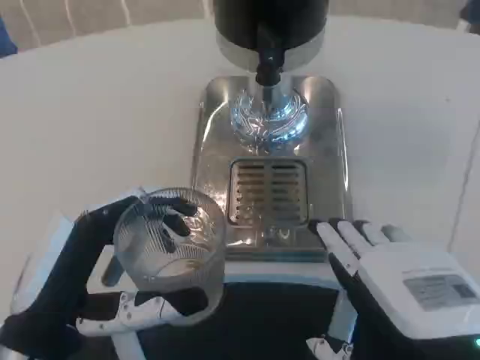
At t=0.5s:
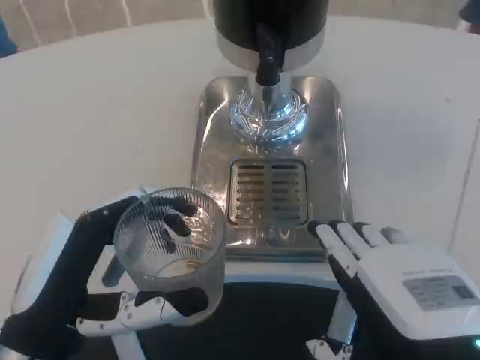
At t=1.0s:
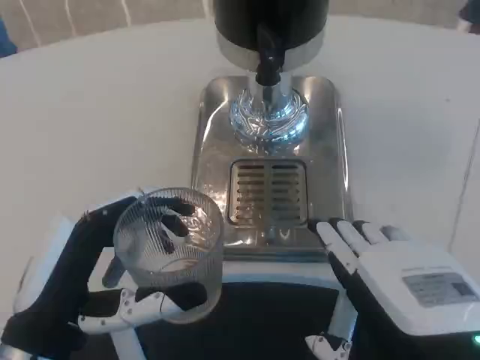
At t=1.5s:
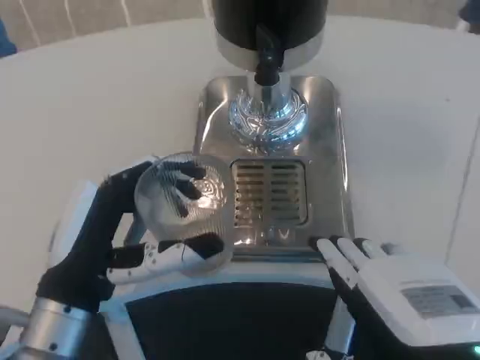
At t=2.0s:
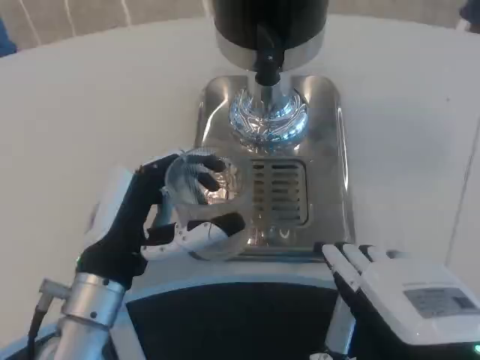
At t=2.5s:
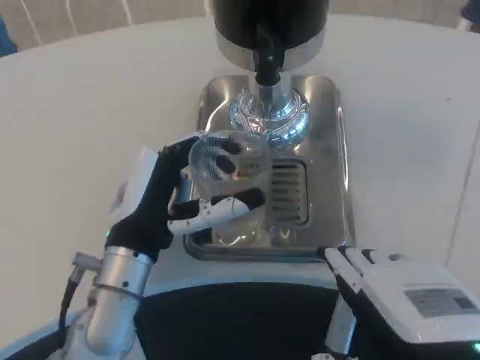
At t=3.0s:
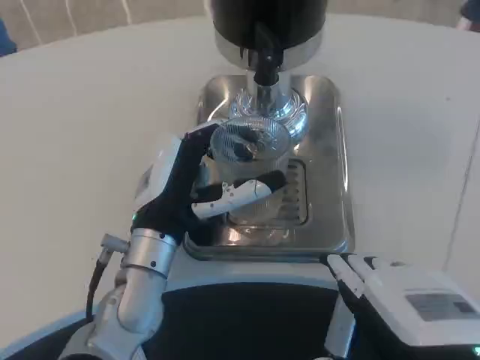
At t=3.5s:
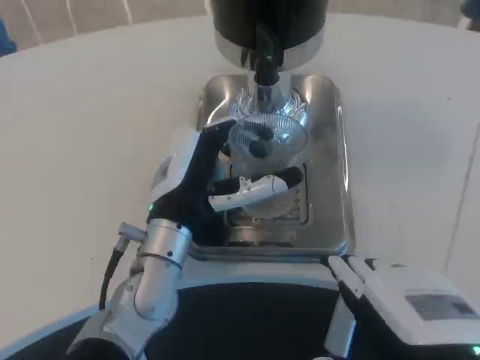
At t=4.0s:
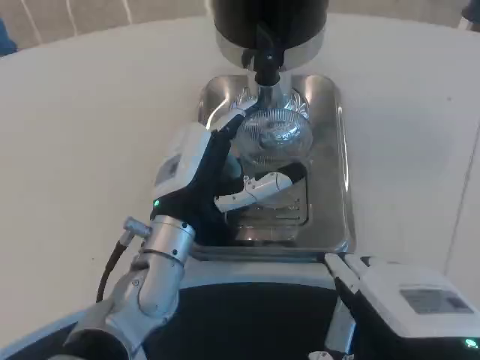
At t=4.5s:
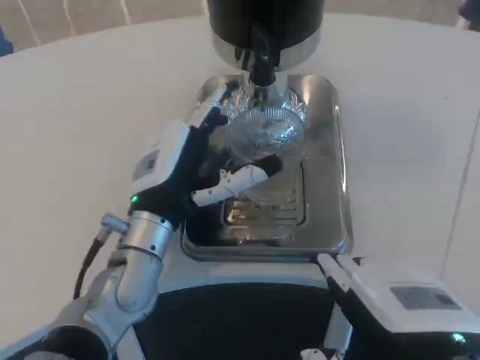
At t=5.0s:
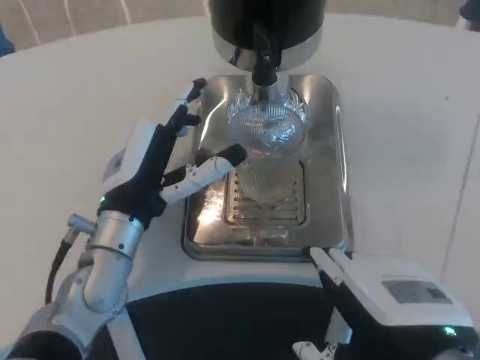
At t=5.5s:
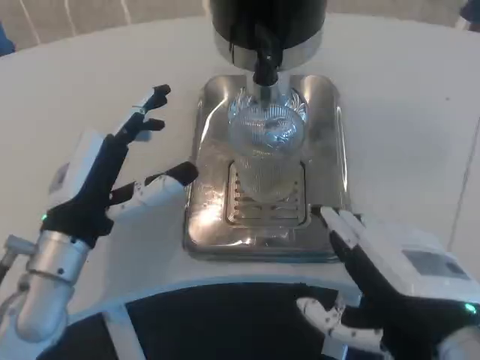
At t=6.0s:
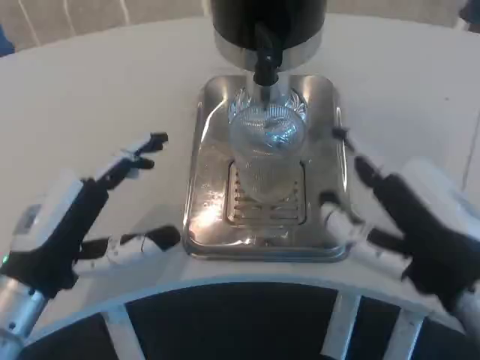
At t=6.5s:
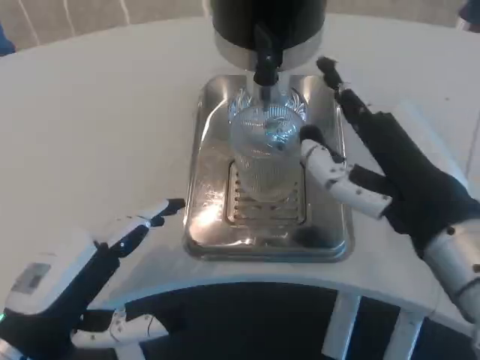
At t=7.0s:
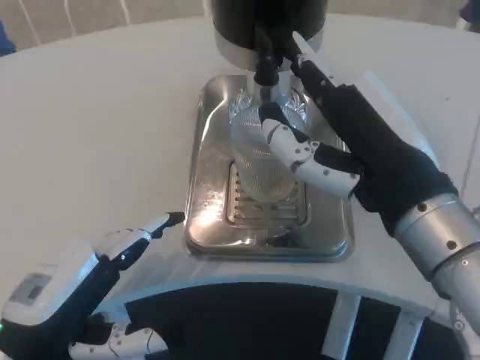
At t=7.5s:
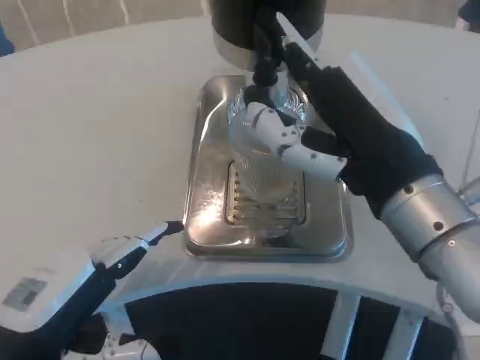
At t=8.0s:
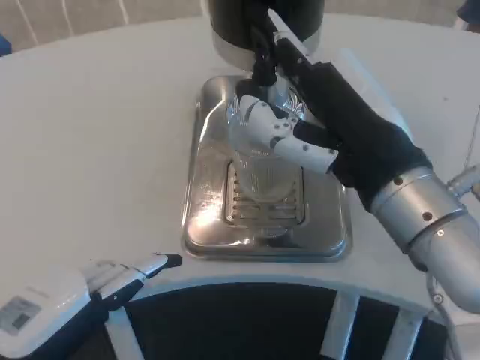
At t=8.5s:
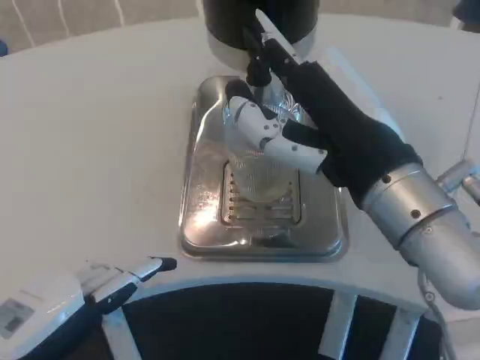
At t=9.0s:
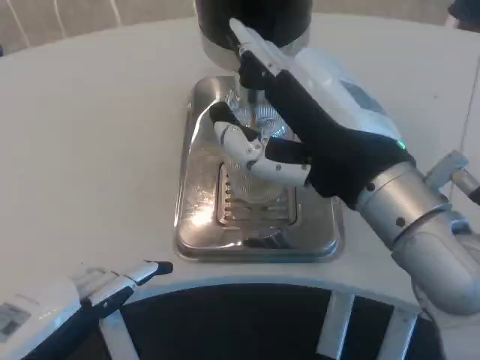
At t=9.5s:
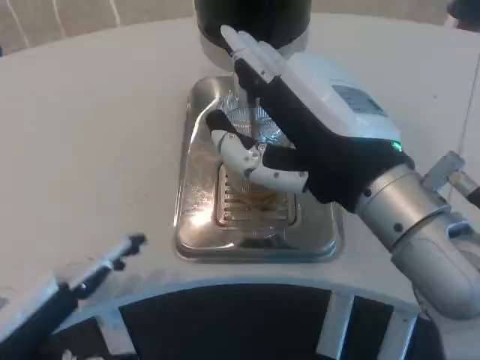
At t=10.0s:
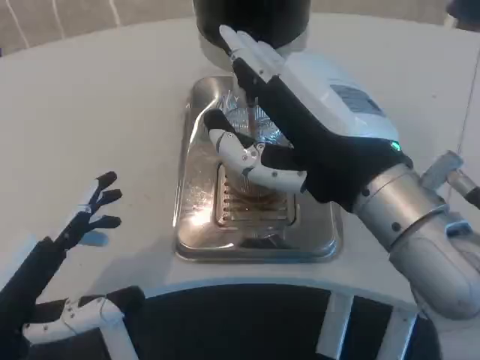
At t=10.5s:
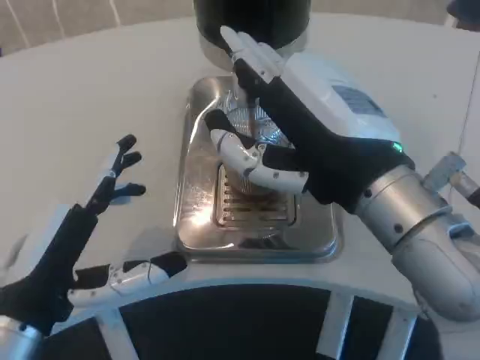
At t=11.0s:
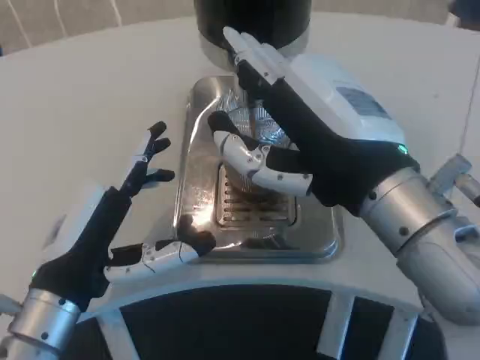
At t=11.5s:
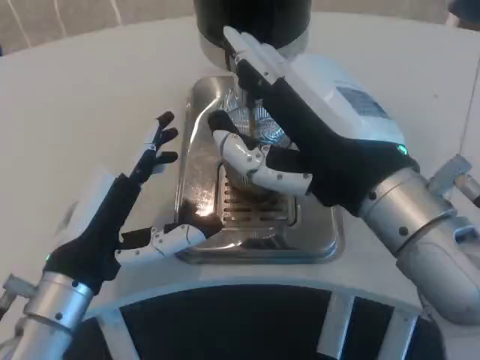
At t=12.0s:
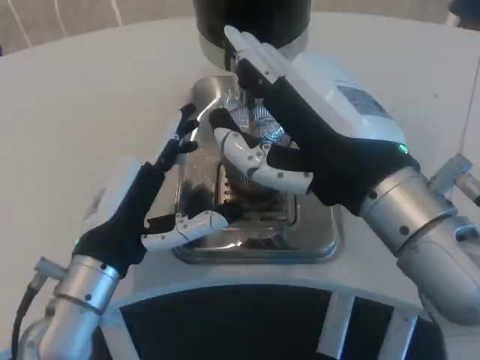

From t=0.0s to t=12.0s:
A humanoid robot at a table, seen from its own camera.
Task of the whole recording: Grasp the cup under the faucet to collect the drink, then remove the cup.
From t=0.0s to t=2.0s: The left hand heads forward, covering approximately 10 cm.
From t=2.0s to t=4.0s: The left hand shifts some 10 cm to the right and forward.
From t=4.0s to t=6.0s: The right hand ends up some 5 cm from where it was. The left hand is displaced to the left and backward by approximately 15 cm.
From t=6.0s to t=8.0s: The right hand goes roughly 5 cm forward, while the left hand travels backward by roughly 10 cm.
From t=10.0s to t=12.0s: The left hand is displaced forward and to the right by approximately 15 cm.

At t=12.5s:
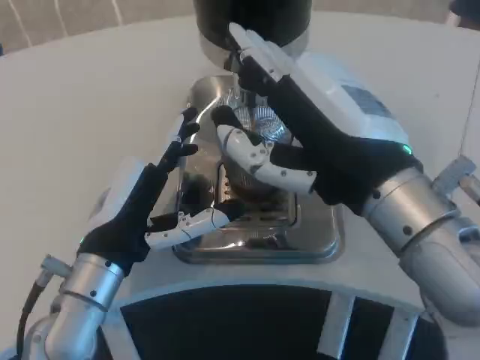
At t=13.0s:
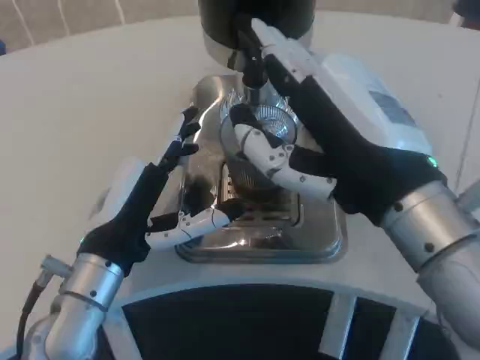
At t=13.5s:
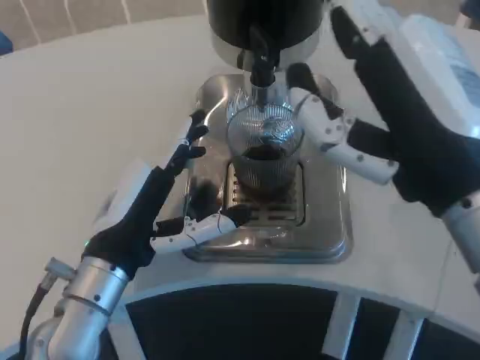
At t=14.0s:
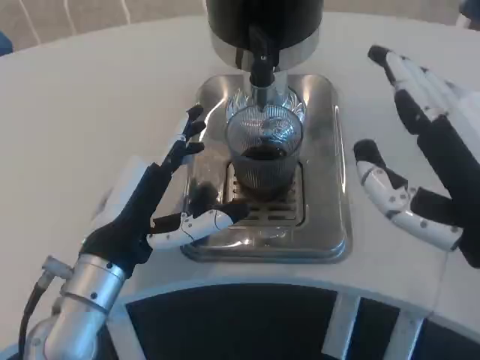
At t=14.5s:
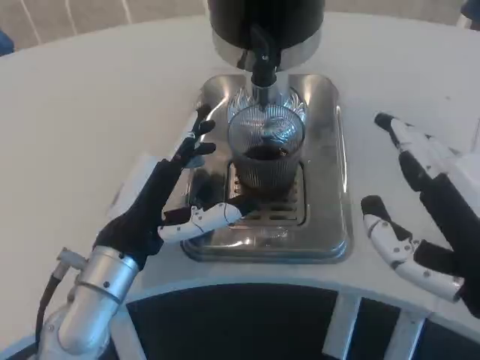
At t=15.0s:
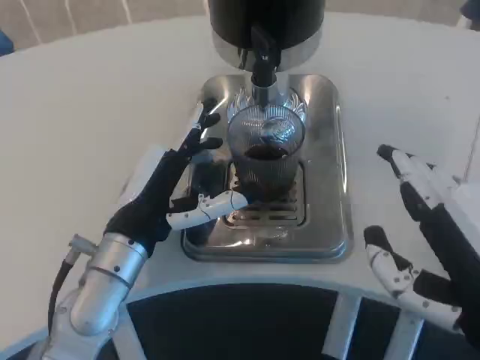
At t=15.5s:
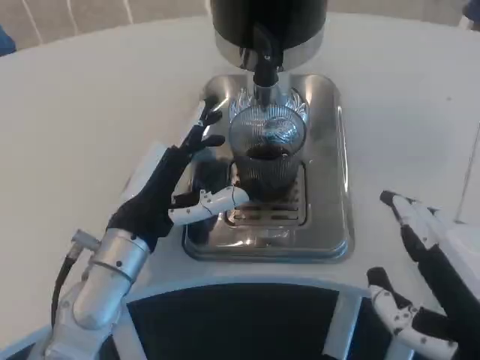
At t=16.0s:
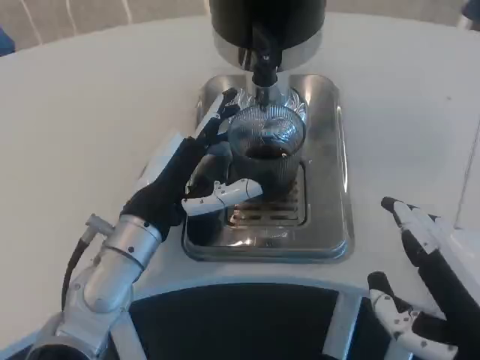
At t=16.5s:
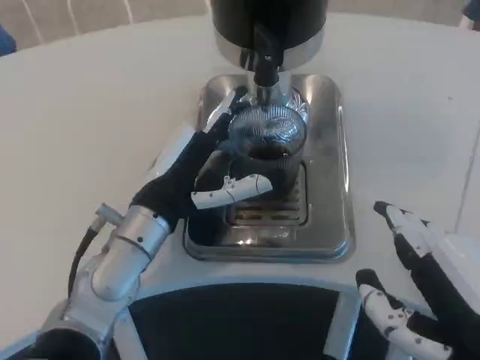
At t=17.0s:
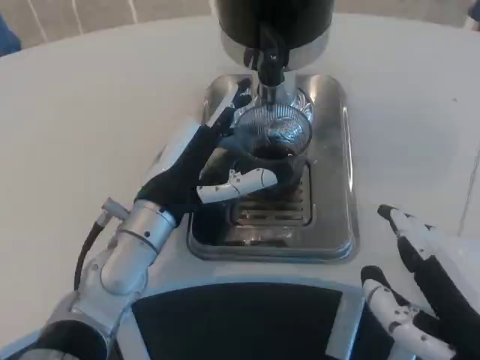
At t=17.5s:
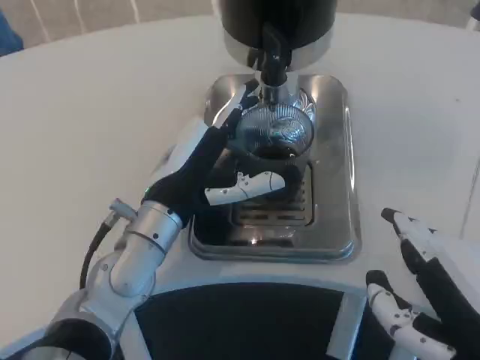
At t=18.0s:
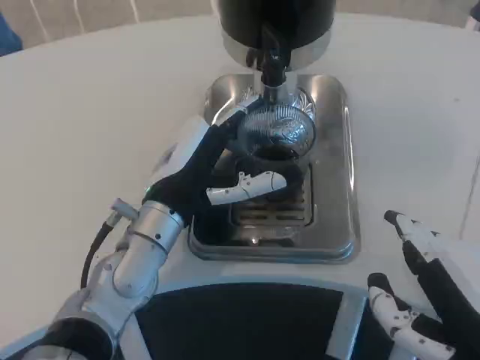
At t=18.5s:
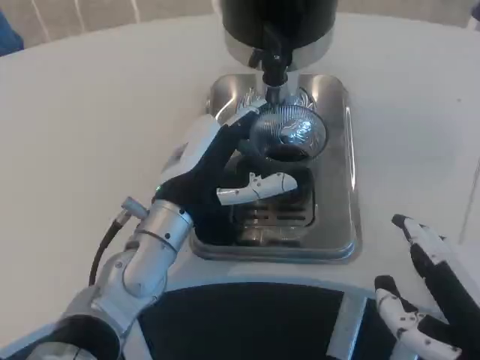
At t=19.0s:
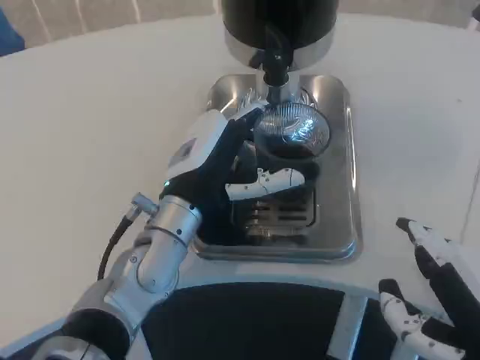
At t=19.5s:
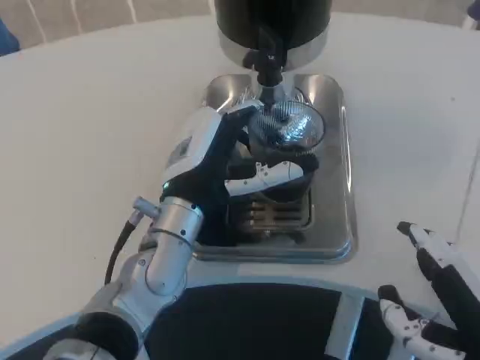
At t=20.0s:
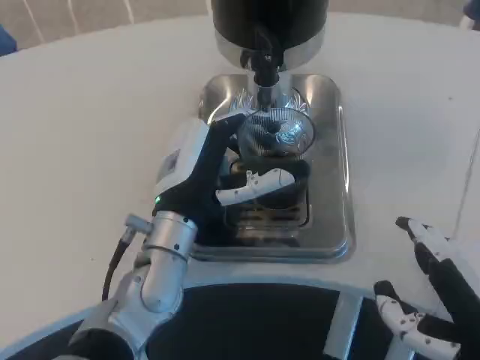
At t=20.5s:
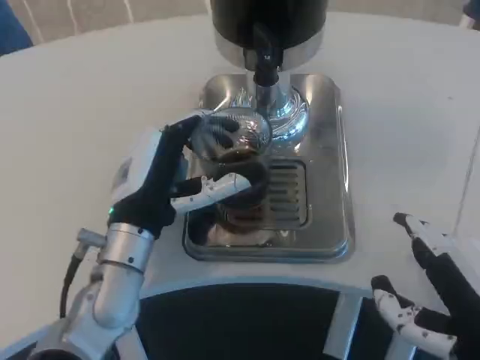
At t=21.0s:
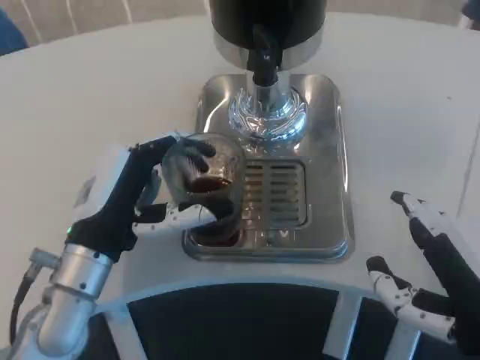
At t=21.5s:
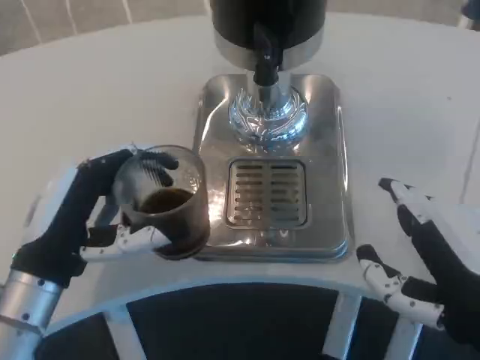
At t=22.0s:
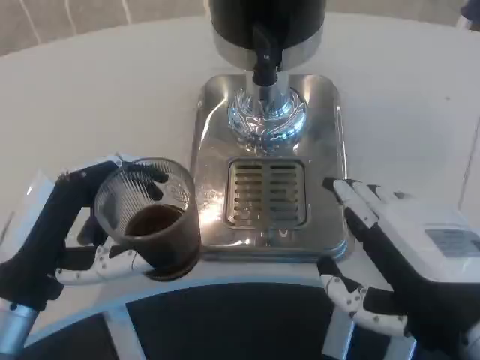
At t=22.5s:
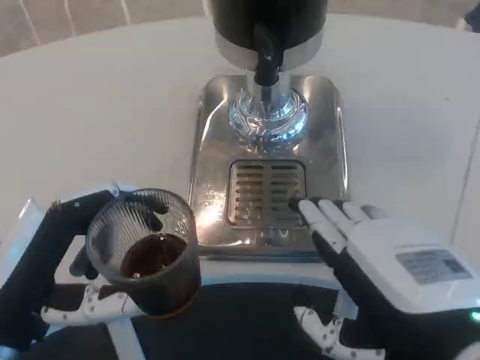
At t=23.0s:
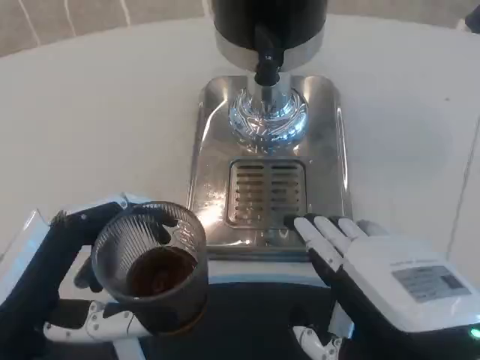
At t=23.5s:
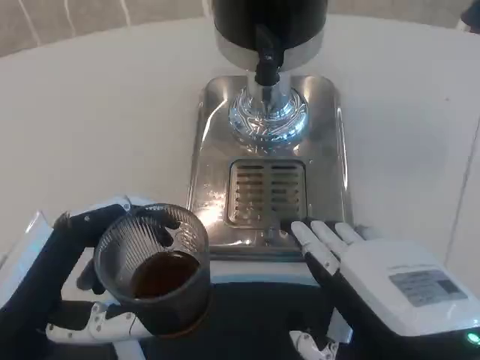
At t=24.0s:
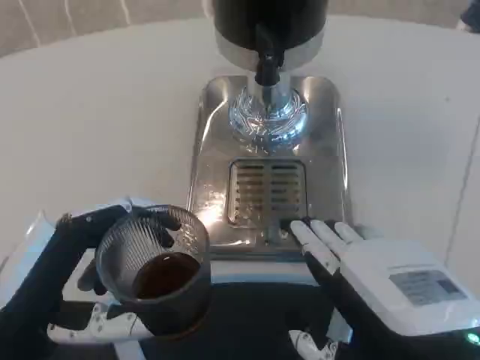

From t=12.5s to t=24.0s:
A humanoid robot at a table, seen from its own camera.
Task of the whole recording: Grasp the cup under the faucet to collect the drink, then remove the cup.
From t=12.5s to t=14.5s: The right hand goes approximately 10 cm backward and to the right.
From t=14.5s to t=16.5s: The left hand changes place by approximately 5 cm.
From t=18.5s to t=20.0s: The hands make only small movements.
From t=20.0s to t=22.0s: The left hand heads to the left and backward, covering roughly 15 cm.

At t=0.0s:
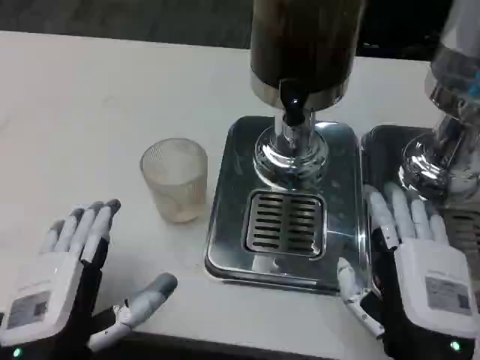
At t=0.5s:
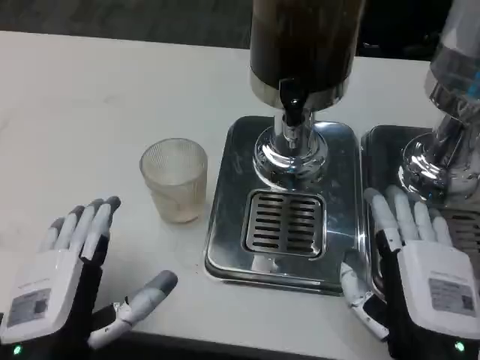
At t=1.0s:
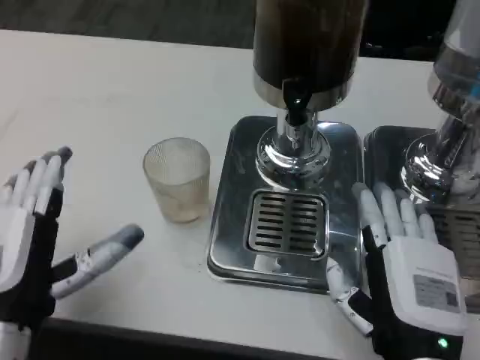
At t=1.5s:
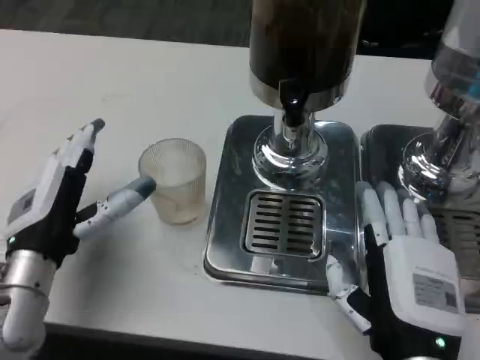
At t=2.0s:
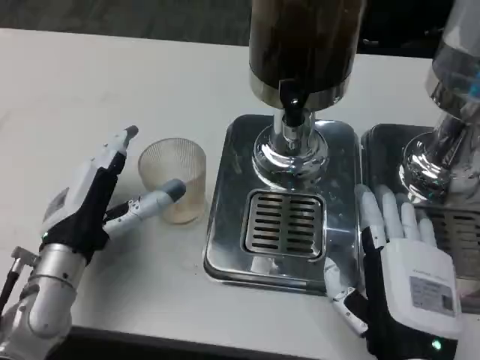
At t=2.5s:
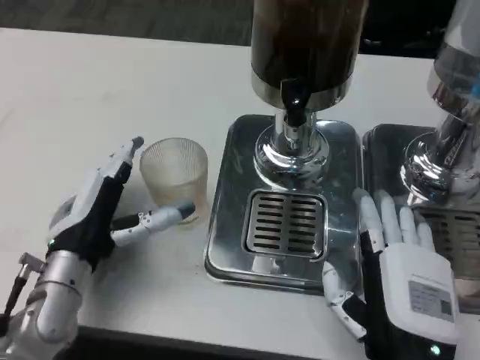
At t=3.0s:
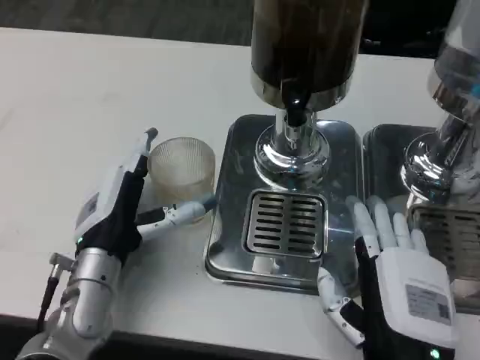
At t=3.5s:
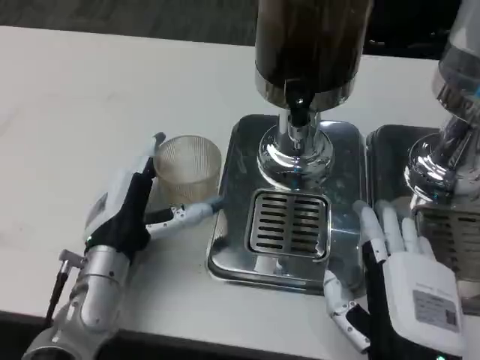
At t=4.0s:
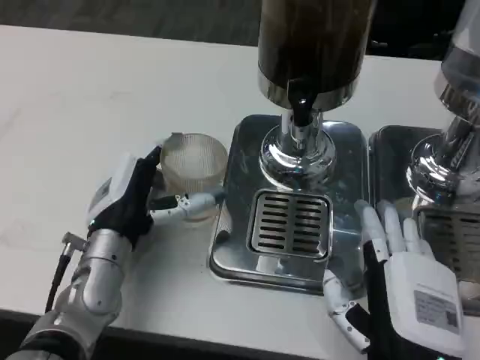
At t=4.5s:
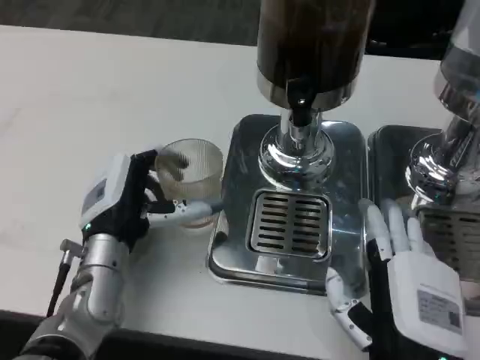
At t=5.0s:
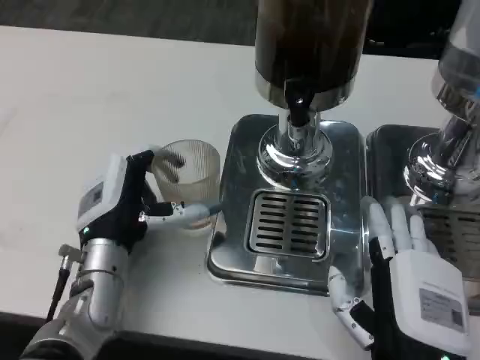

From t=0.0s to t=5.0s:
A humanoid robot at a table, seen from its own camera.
Task of the whole recording: Grasp the cup under the faucet to collect the drink, then remove the cup.
From t=0.0s to t=2.5s: The left hand is displaced forward by some 15 cm.
